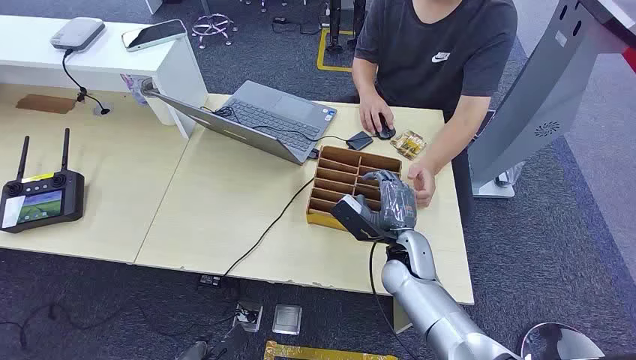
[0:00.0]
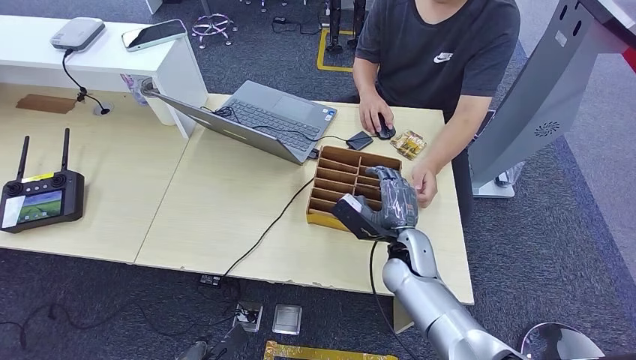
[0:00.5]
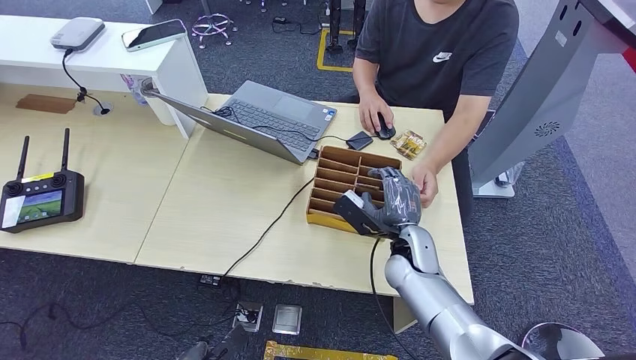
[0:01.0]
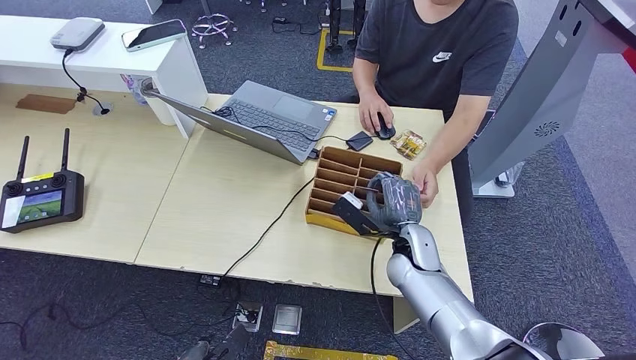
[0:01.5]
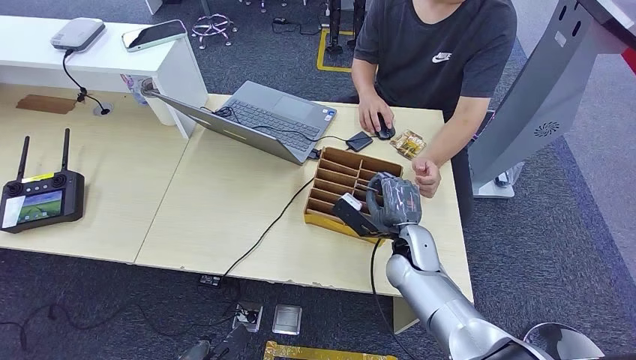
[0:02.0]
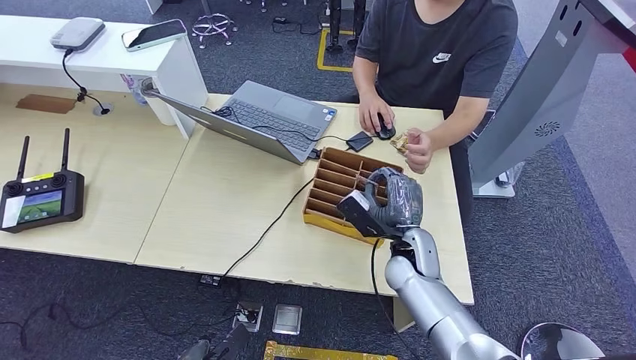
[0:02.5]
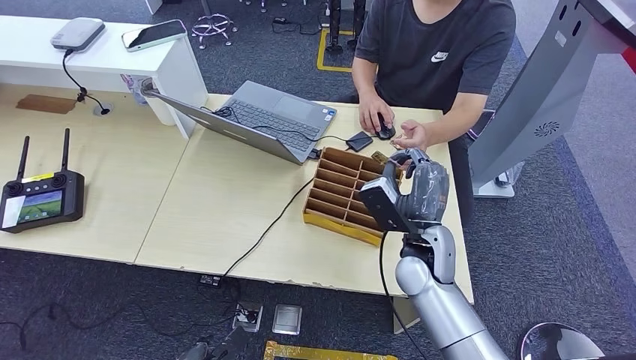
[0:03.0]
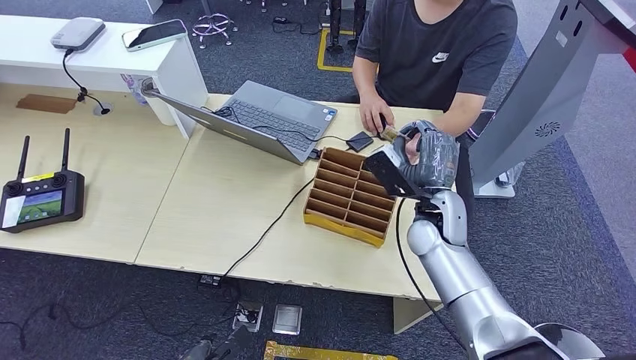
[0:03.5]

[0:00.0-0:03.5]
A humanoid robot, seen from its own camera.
Step, 0:00.0 to 0:02.0: Pick up the key card from the card box.
Step, 0:02.5 to 0:03.5: Hand the key card to the target.
0:02.0 to 0:03.5: The right hand shifts approximately 10 cm upward.
